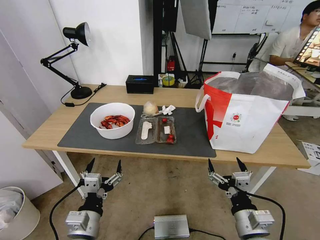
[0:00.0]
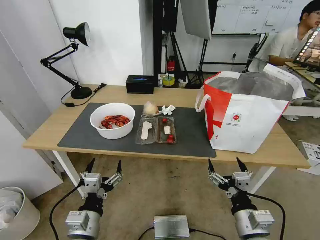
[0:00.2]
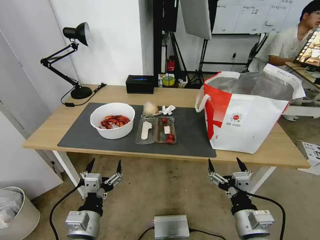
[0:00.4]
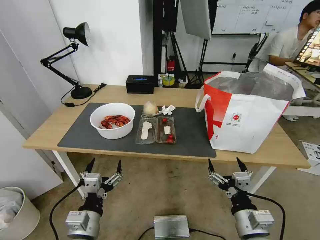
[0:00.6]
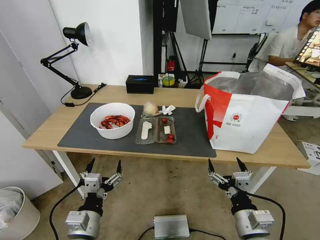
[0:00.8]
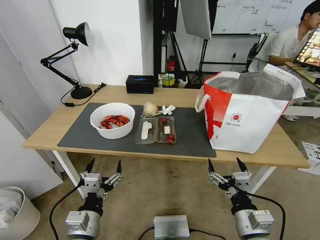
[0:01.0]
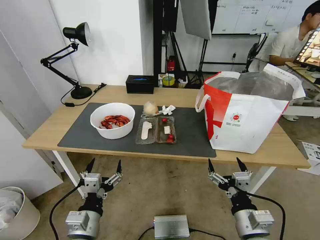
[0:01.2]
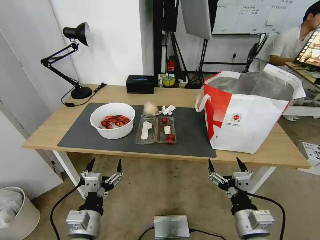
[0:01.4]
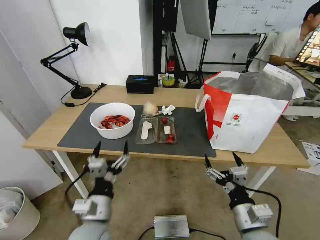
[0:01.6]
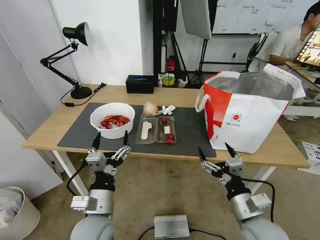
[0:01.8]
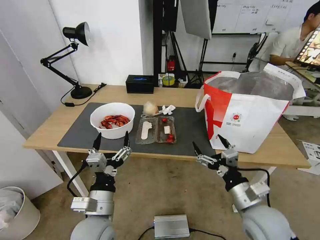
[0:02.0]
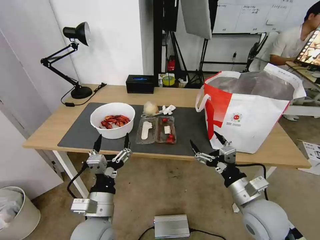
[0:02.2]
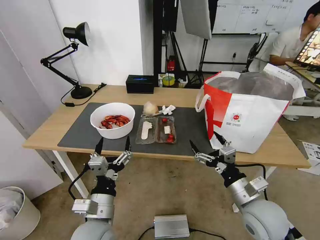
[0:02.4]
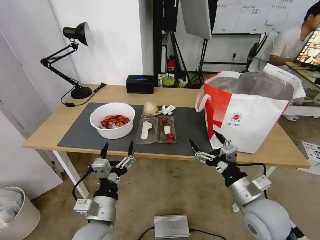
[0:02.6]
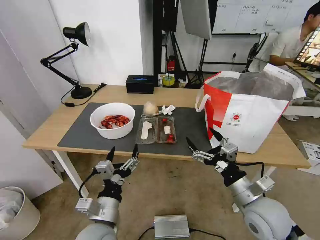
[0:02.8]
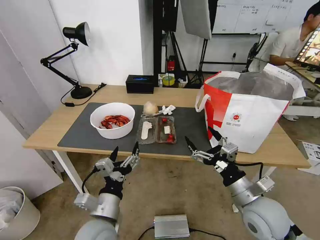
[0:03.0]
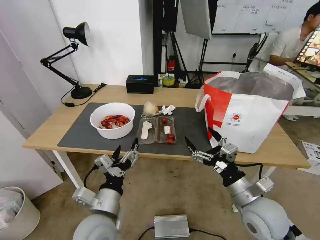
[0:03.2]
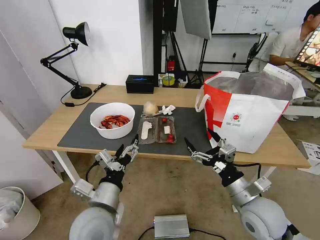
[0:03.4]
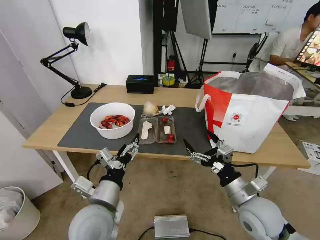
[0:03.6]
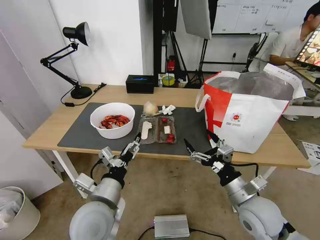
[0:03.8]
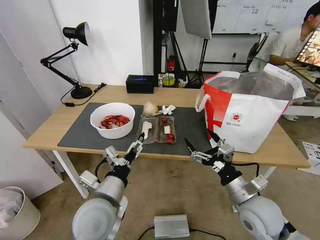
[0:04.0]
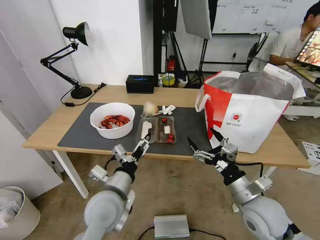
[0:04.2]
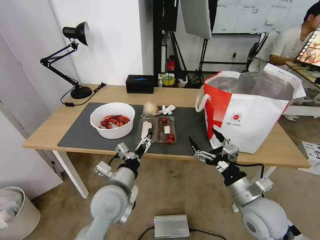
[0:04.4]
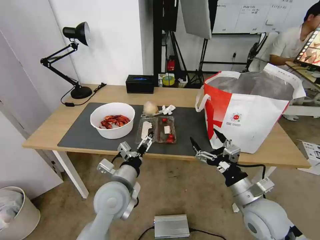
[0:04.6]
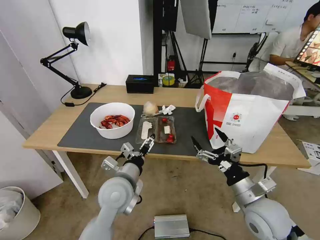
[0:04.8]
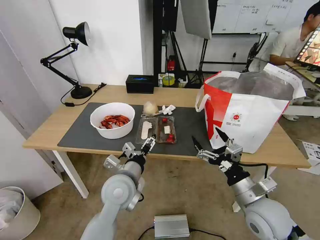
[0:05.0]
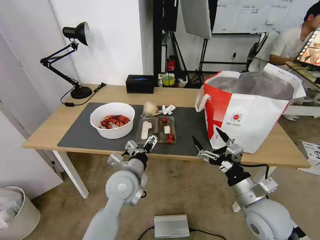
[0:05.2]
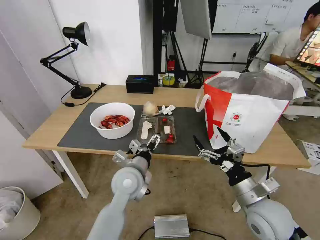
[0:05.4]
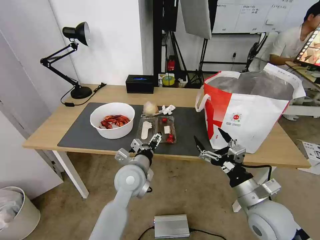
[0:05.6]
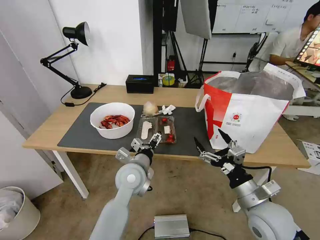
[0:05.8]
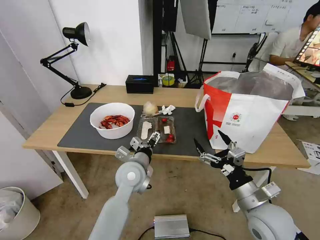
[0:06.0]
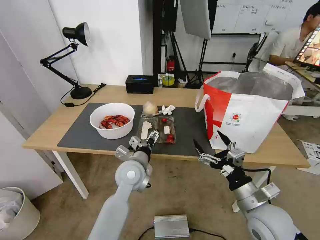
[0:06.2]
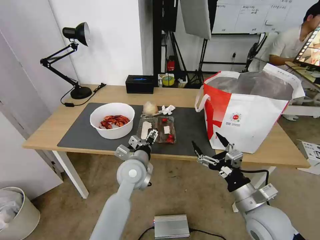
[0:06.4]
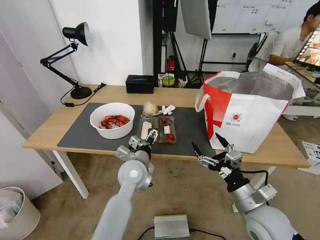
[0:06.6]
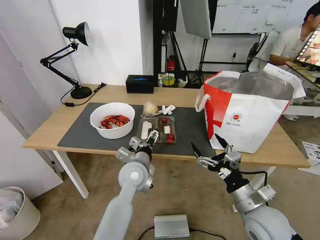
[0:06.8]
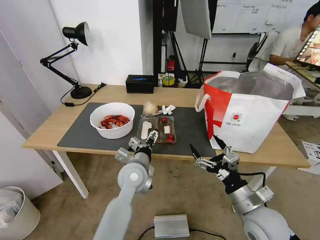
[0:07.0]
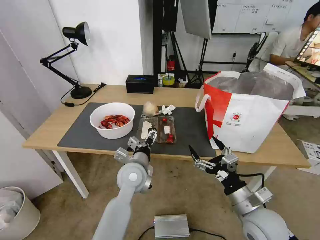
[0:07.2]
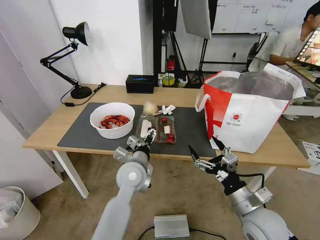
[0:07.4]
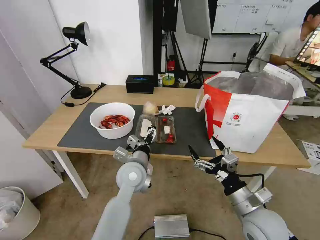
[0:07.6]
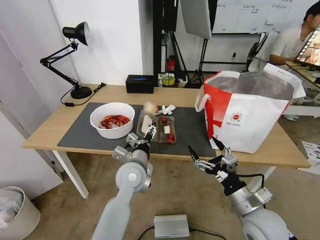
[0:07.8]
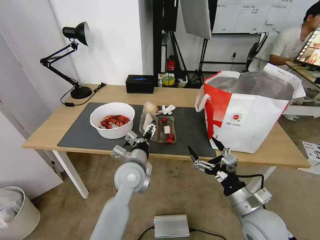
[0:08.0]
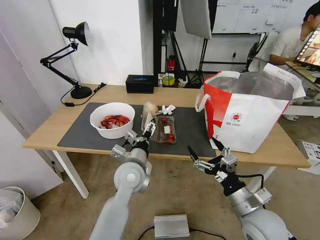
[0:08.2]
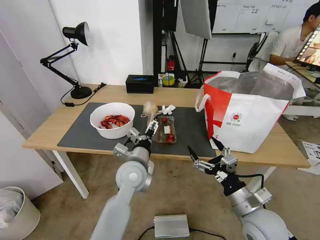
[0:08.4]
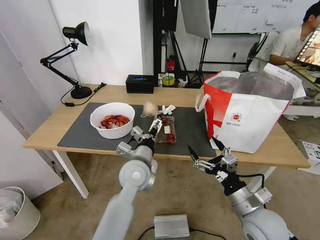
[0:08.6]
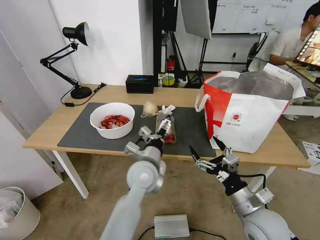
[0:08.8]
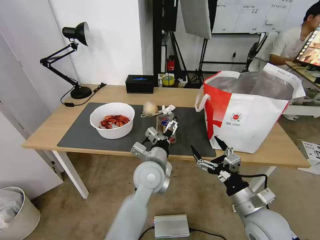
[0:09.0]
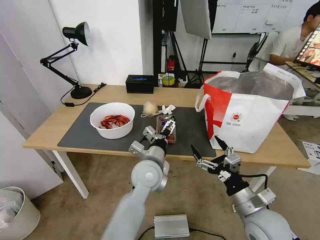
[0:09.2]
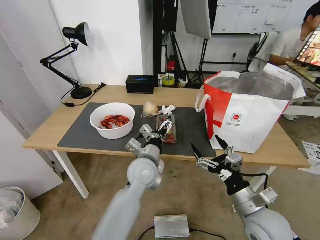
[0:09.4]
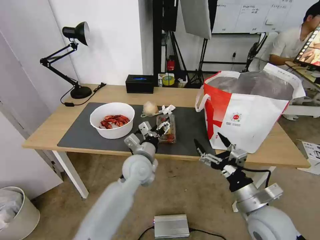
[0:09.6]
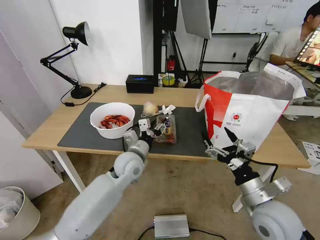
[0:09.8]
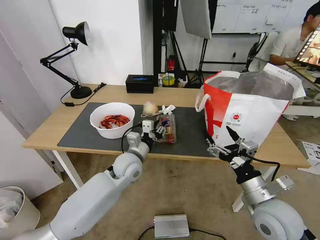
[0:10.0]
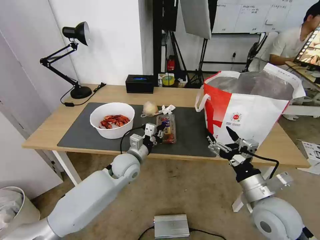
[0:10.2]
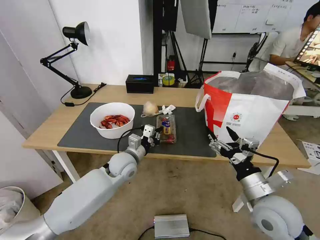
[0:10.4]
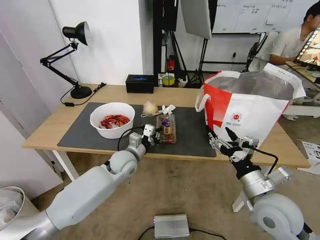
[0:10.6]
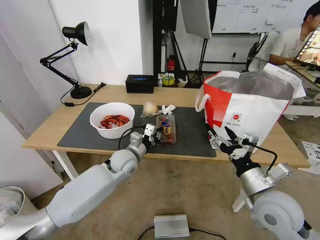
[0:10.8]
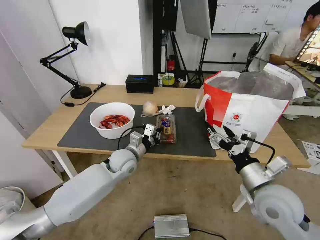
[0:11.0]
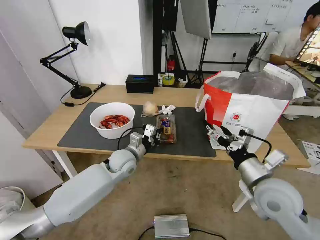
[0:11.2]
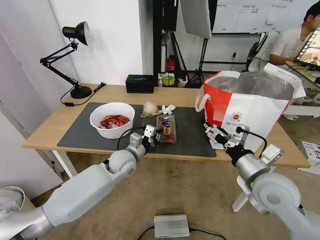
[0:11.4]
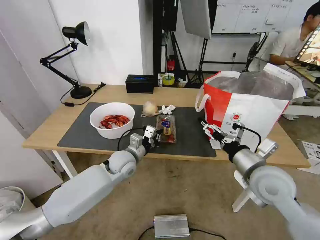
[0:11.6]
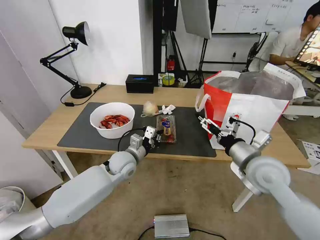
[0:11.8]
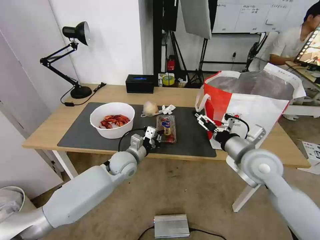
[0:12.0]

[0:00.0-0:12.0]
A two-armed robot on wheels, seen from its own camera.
Task of the whole recording: Pick up the trash from the table and place it into the takeout bag.
0:01.6 to 0:03.0: The right gripper shifts roughly 5 cm forward.
0:03.0 to 0:04.4: The left gripper moves forward, approximately 10 cm.
0:04.4 to 0:06.0: The left gripper shifts approximately 10 cm forward.
0:06.0 to 0:07.6: There are only small adjustments of the grippers.
0:07.6 to 0:09.0: The left gripper travels to the right by some 5 cm.
0:09.0 to 0:10.4: The left gripper shifts roughly 15 cm to the left, forward and downward, and closes up.
0:10.4 to 0:12.0: The right gripper shifts roughly 10 cm forward and upward.

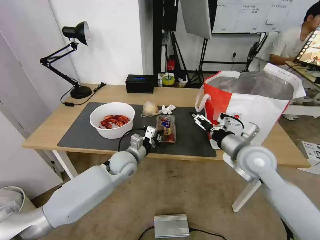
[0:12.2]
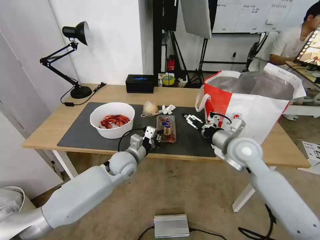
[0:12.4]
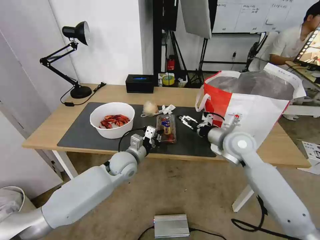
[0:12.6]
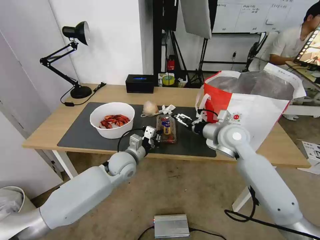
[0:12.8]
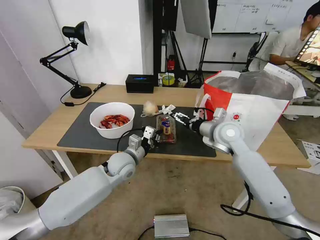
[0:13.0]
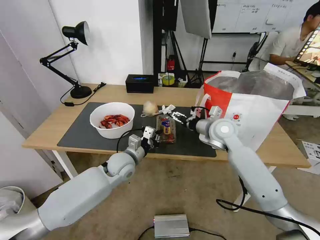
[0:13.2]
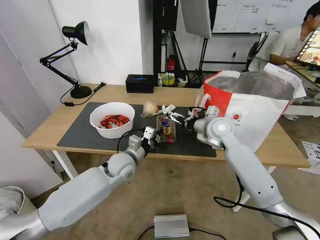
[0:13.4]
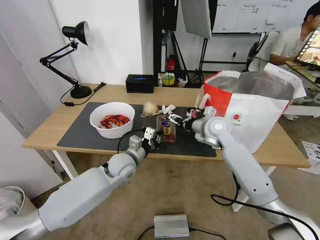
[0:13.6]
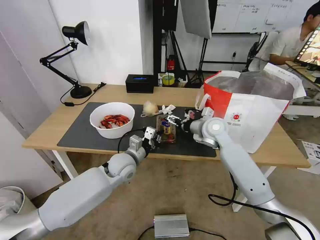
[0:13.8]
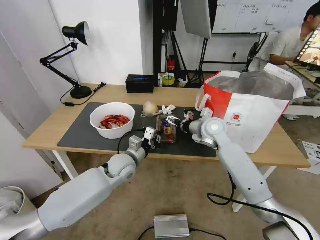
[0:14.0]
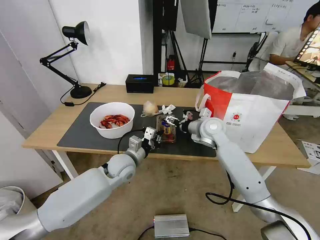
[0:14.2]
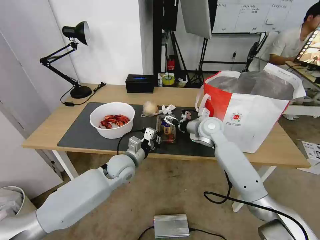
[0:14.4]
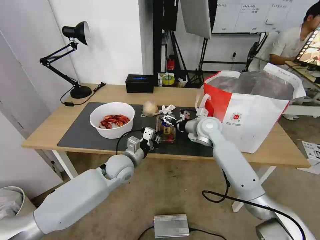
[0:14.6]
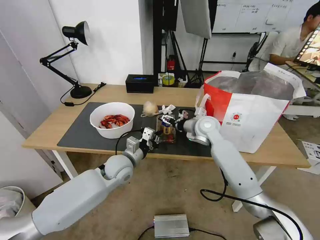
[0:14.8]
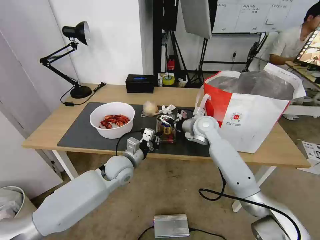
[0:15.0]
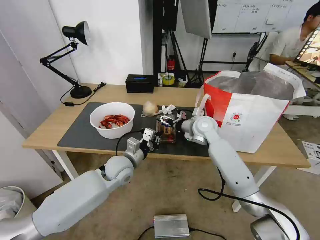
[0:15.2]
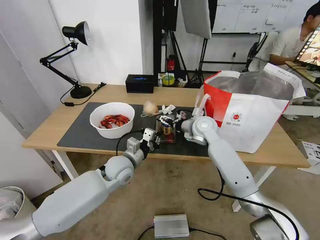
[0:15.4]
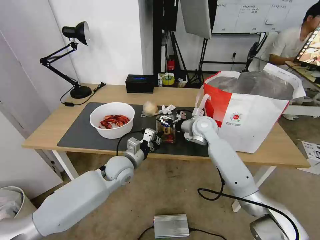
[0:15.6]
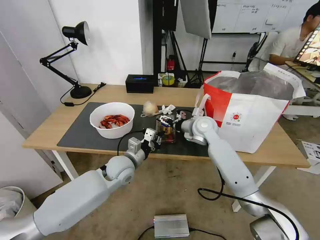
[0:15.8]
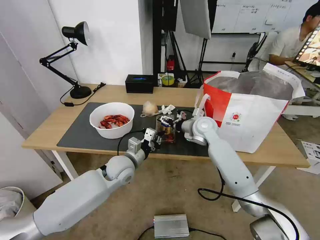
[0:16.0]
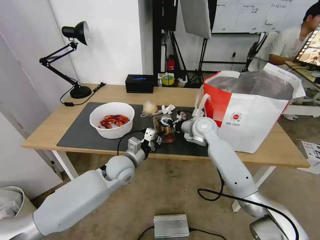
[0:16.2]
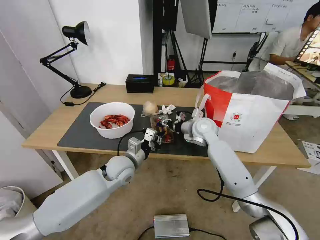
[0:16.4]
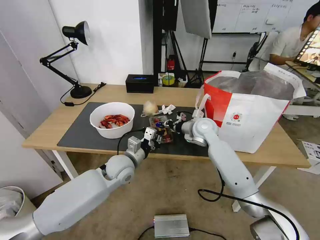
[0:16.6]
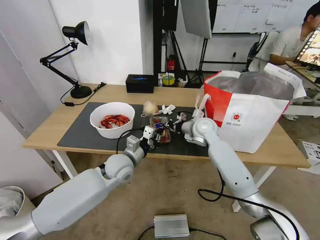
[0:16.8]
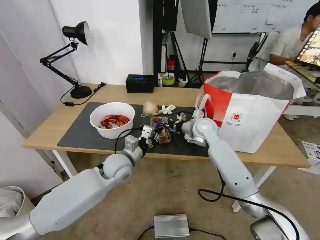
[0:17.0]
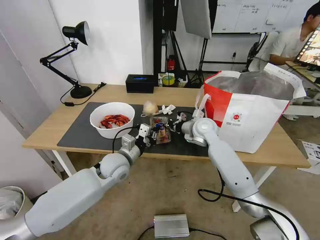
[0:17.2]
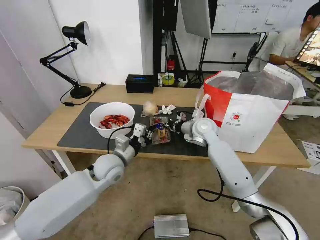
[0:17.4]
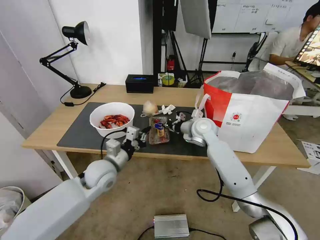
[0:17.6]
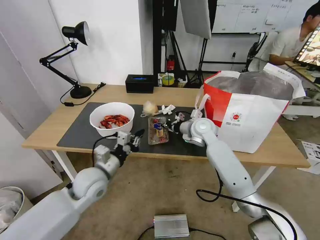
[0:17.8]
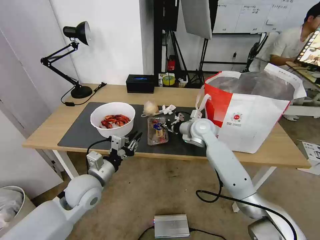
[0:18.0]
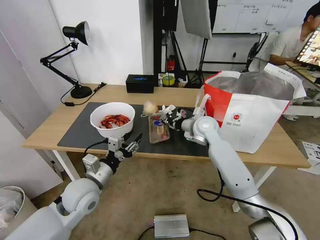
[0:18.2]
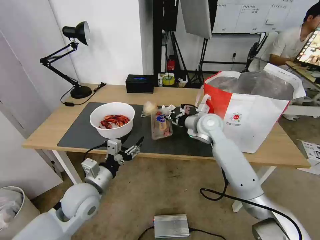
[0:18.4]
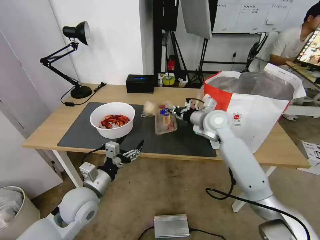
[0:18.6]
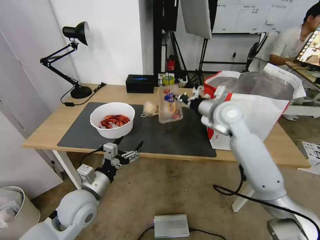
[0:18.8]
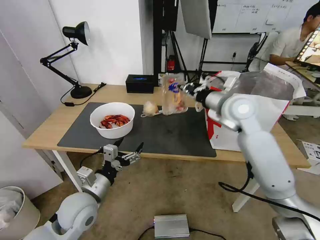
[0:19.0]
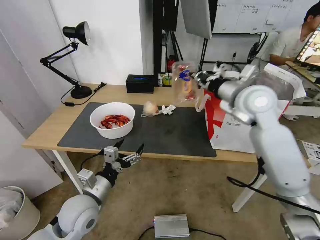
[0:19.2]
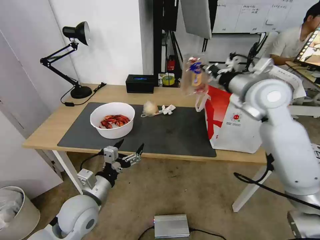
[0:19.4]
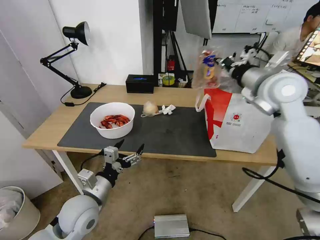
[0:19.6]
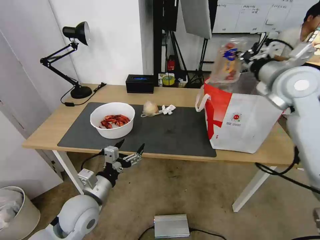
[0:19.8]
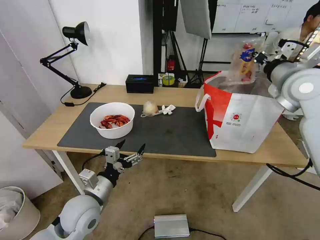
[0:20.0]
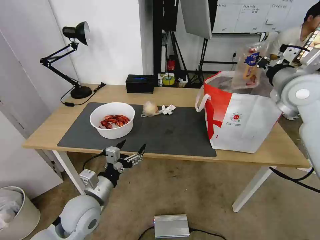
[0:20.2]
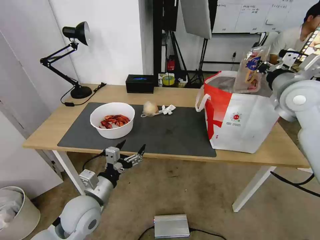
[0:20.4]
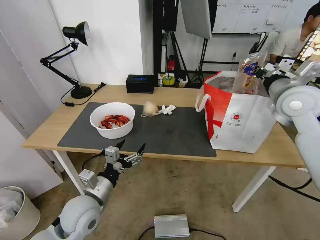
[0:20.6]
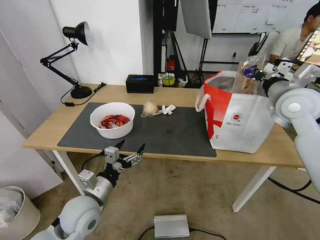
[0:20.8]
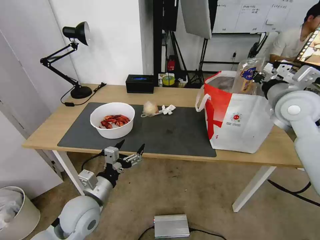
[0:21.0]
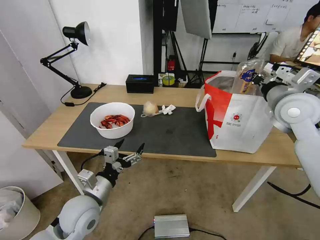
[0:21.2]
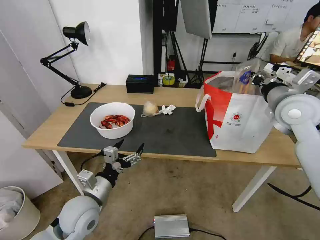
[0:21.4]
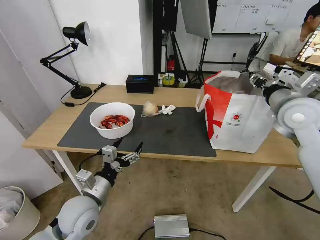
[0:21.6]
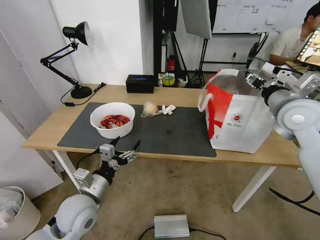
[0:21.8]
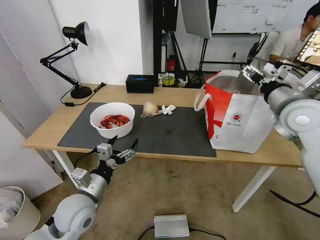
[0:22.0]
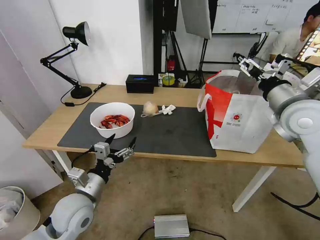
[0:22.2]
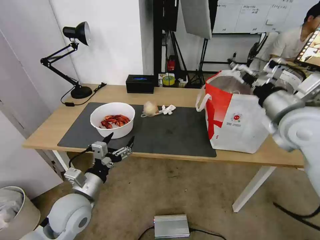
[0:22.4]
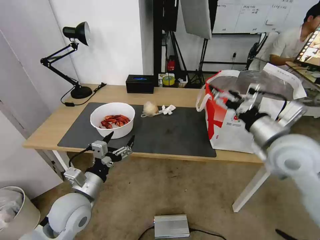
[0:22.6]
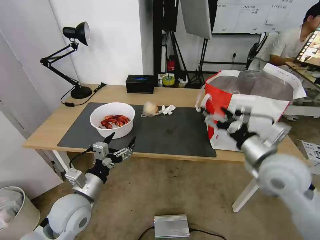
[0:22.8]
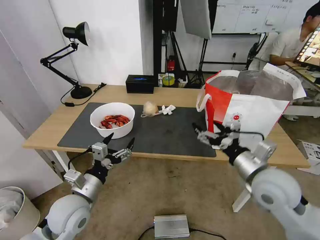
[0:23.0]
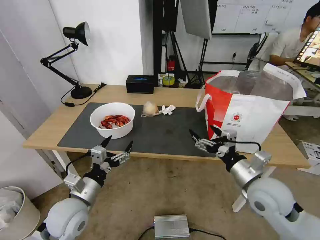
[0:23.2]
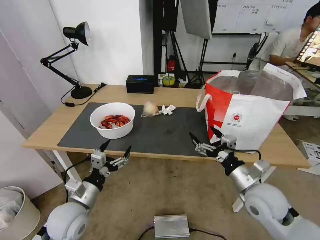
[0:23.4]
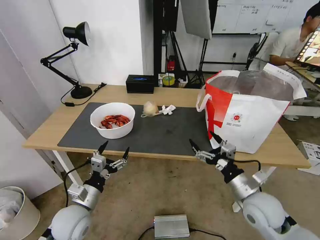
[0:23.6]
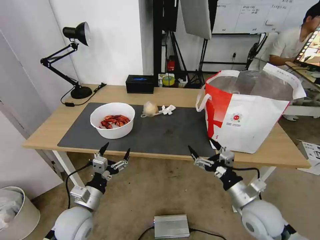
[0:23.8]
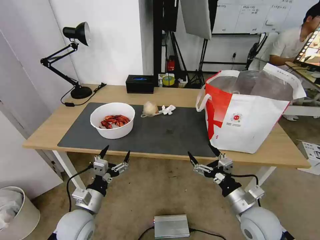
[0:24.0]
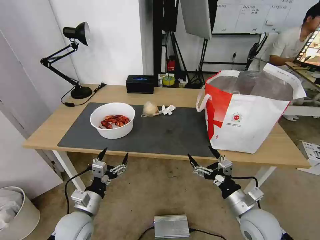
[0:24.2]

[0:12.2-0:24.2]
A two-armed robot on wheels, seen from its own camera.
Task of the whole recording: Pick up the trash from the table and place it into the takeout bag.
0:12.2 to 0:13.8: The right gripper travels forward and to the left by some 15 cm.
0:13.8 to 0:15.2: There are only small adjustments of the grippers.
0:15.2 to 0:16.6: The right gripper closes.
0:16.6 to 0:18.2: The left gripper travels backward and to the left by some 15 cm, and opens its fingers.
0:18.2 to 0:19.8: The left gripper opens up. Meanwhile the right gripper goes about 25 cm upward and to the right.
0:19.8 to 0:21.2: The right gripper is displaced downward by approximately 5 cm.
0:21.2 to 0:22.6: The right gripper goes approximately 10 cm backward and to the left, and opens up.
0:22.6 to 0:24.2: The left gripper shifts about 10 cm downward; the right gripper shifts about 25 cm downward and backward.
